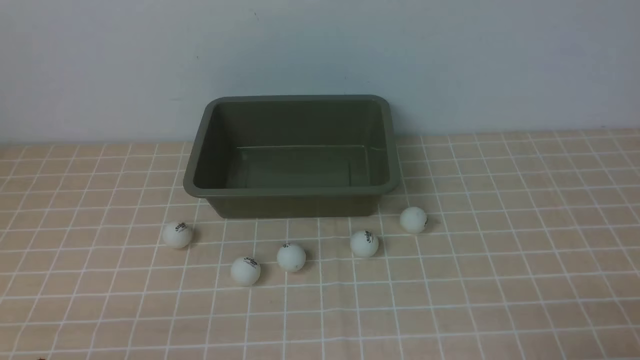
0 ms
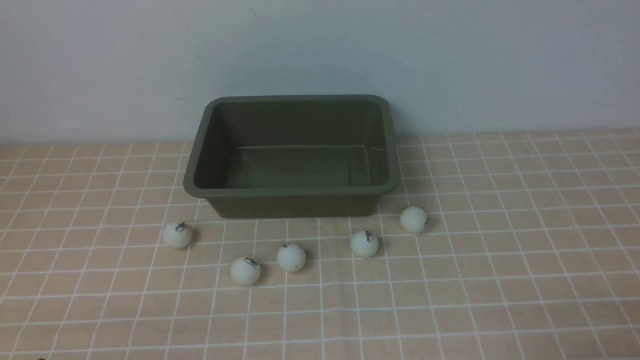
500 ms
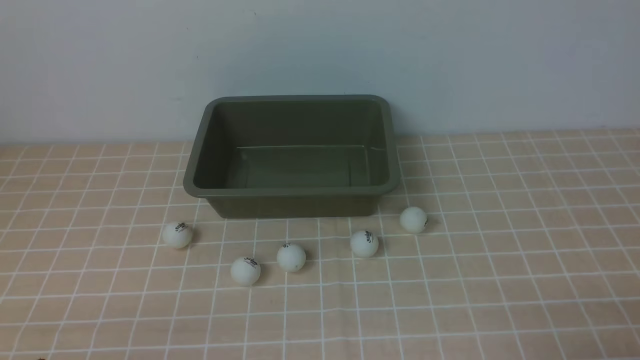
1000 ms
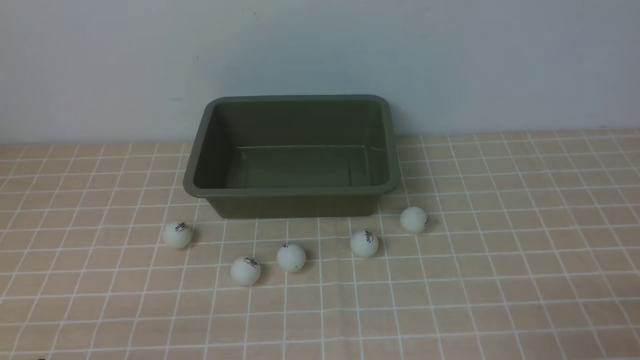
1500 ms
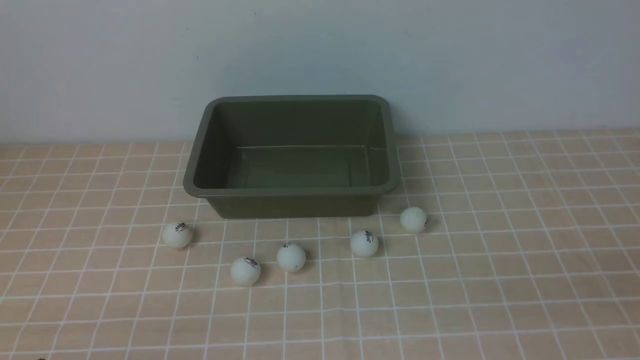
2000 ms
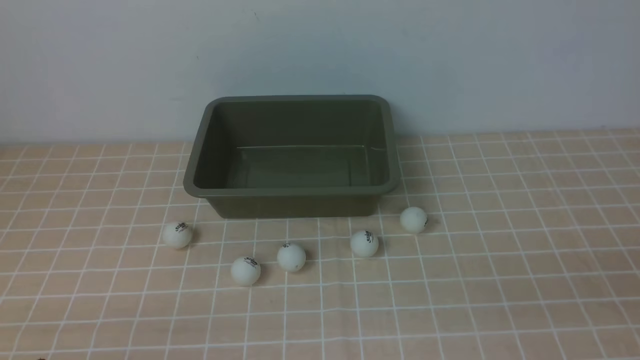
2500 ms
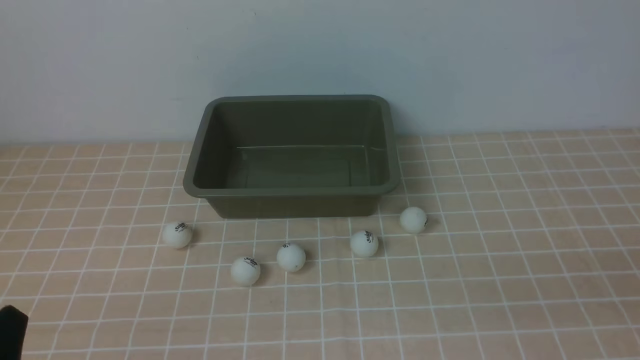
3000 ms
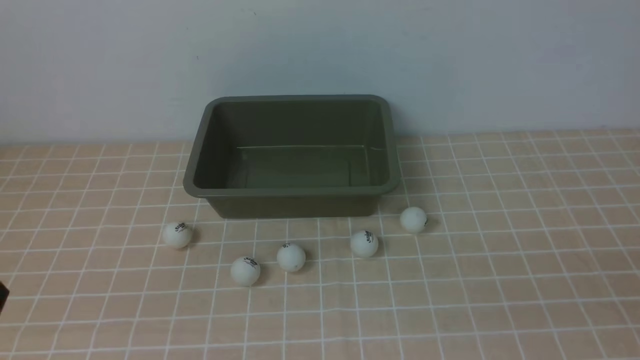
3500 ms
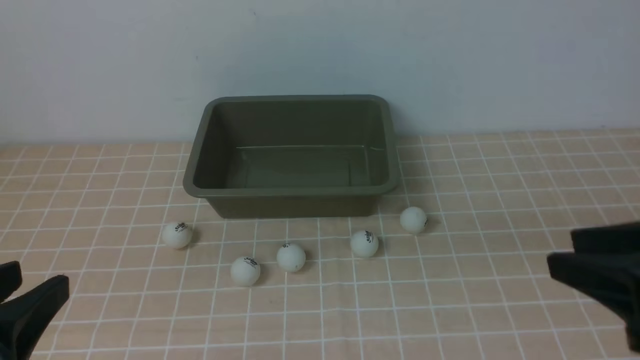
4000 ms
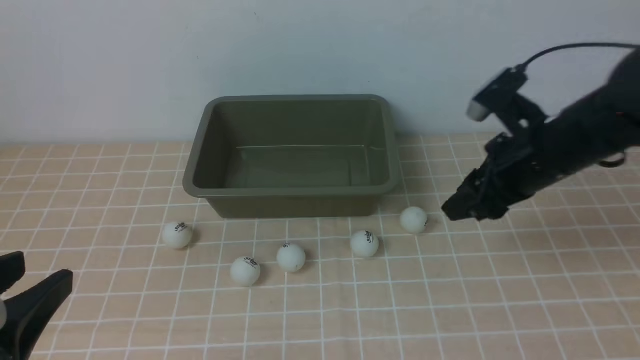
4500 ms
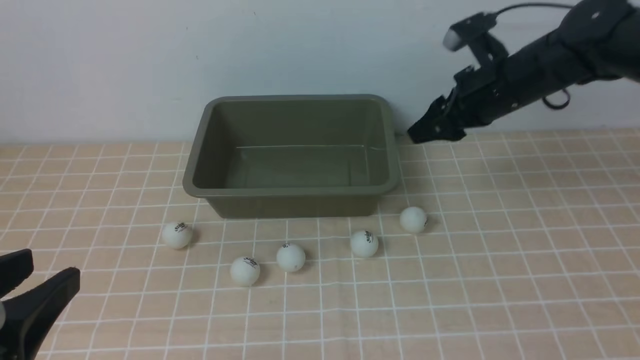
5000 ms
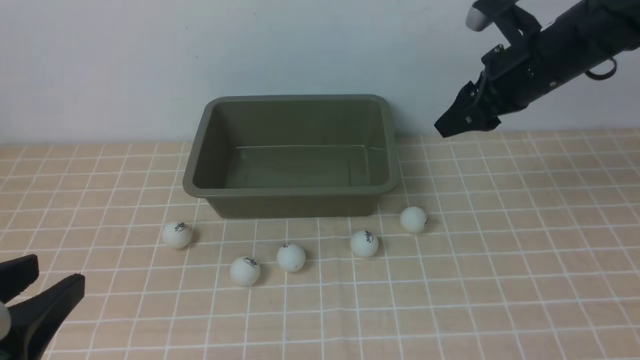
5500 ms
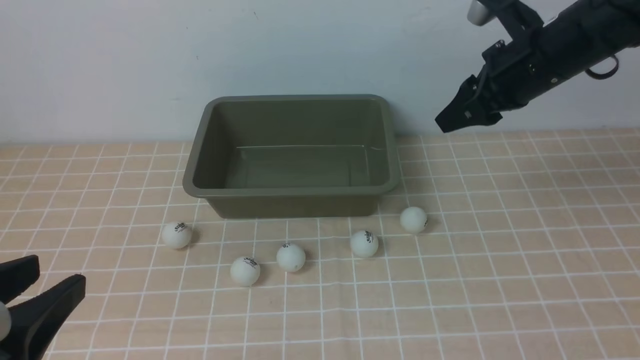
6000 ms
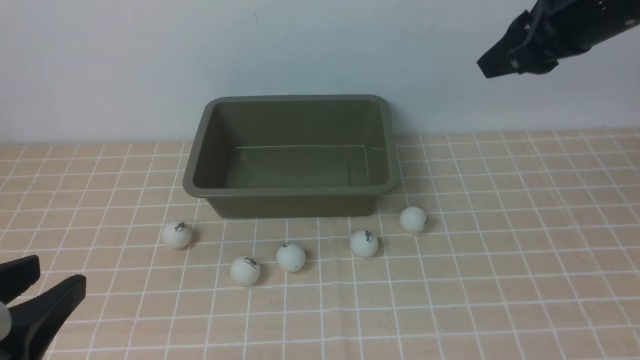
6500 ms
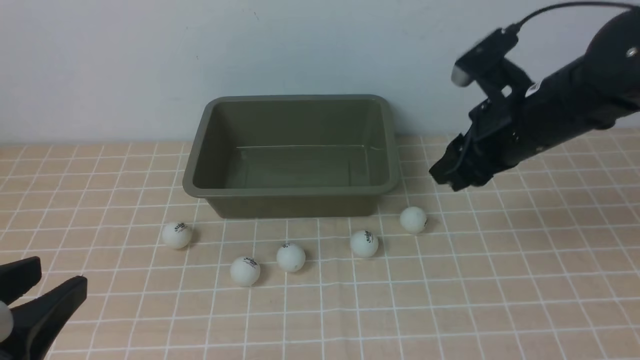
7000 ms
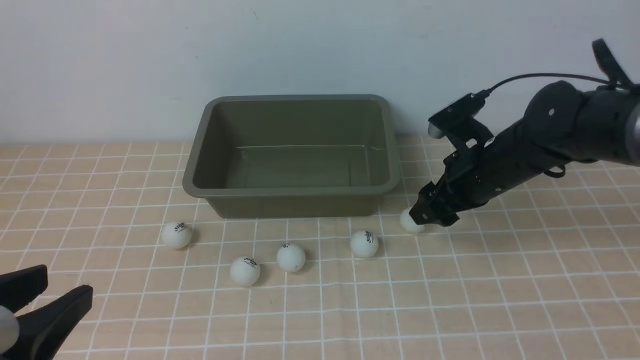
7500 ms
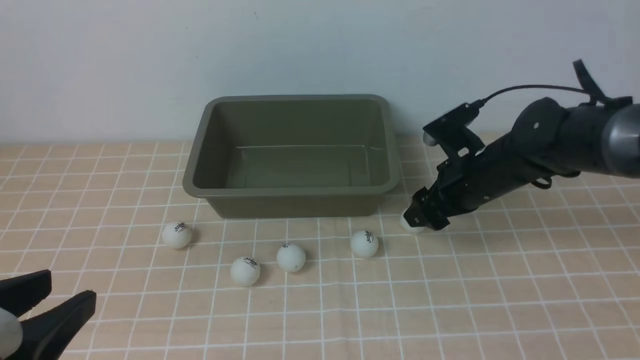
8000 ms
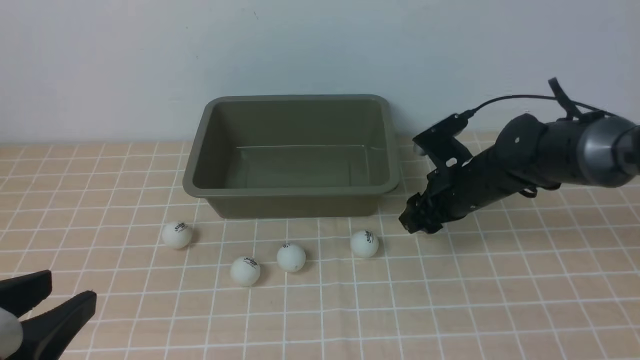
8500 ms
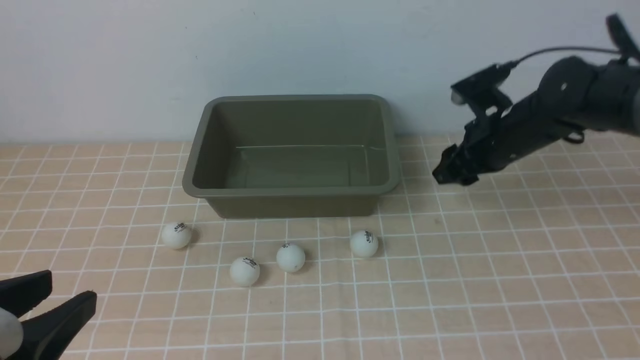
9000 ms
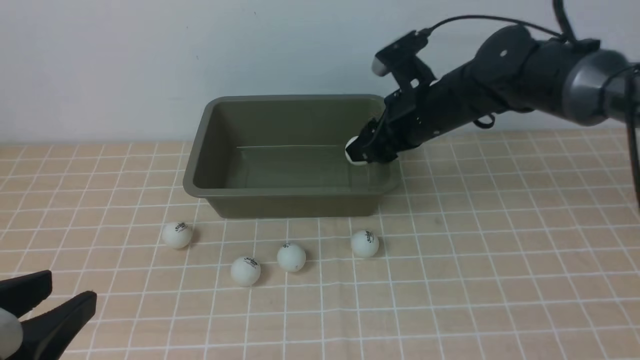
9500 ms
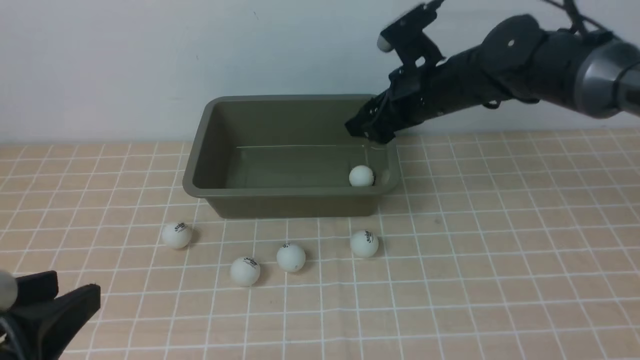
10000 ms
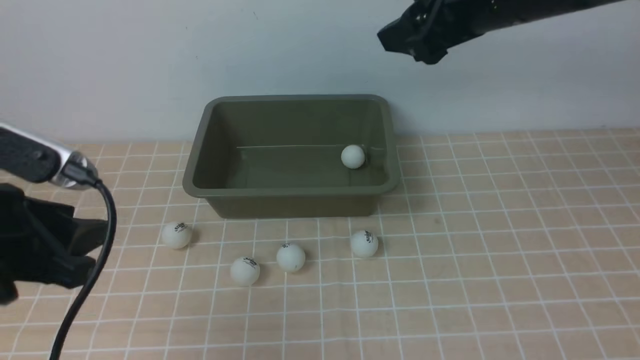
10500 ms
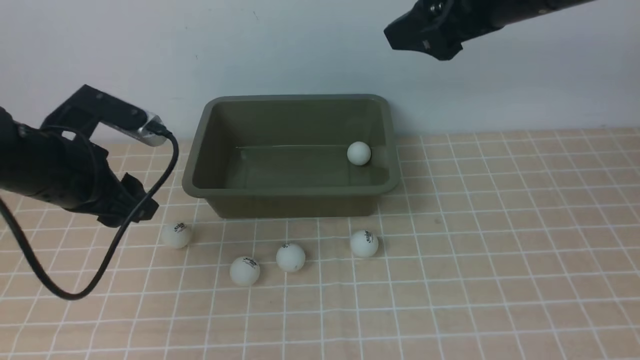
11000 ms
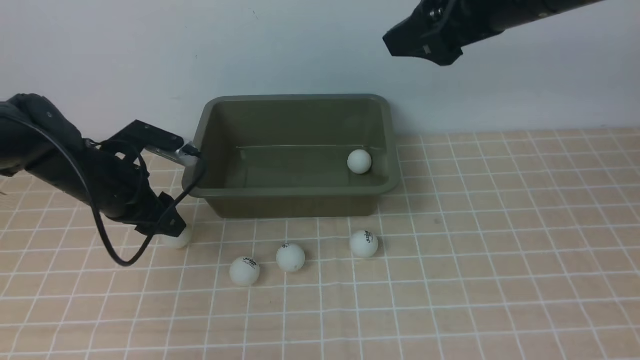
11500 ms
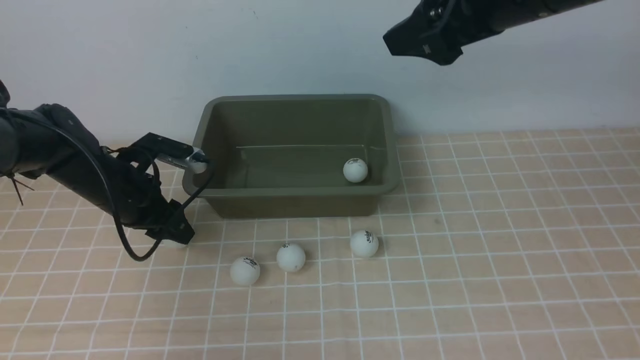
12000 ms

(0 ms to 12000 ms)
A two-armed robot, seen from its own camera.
Step, 0 ms - 8500 ms: use the right arm to clamp the table tennis ball closest to it.
Step, 9000 ms - 10000 ms: use the right arm to put the table tennis ball into the box.
2000 ms - 4000 ms: The left gripper heads upward, covering approximately 15 cm. Meanwhile the right gripper shifts roughly 10 cm forward.
4000 ms - 6000 ms: The right gripper is displaced forward by some 25 cm.
6000 ms - 8000 ms: The right gripper heads downward, covering approximately 15 cm, and opens.
8000 ms - 10000 ms: The right gripper moves upward, about 10 cm, and closes, then reopens.
10000 ms - 12000 ms: The right gripper moves upward and backward, about 15 cm. Meanwhile the left gripper heads forward and downward, covering about 30 cm.

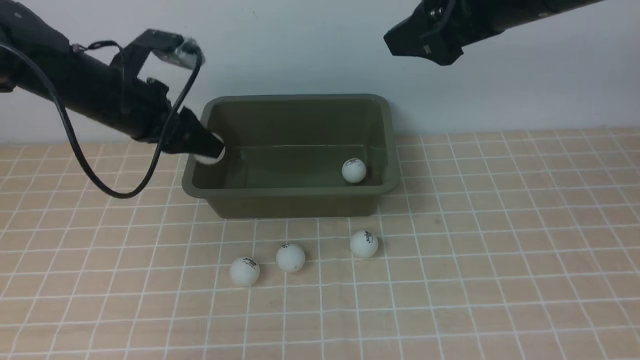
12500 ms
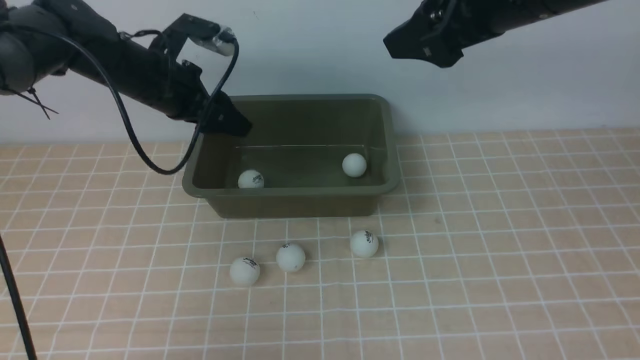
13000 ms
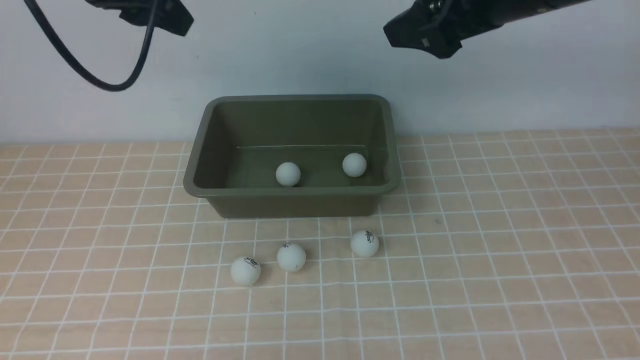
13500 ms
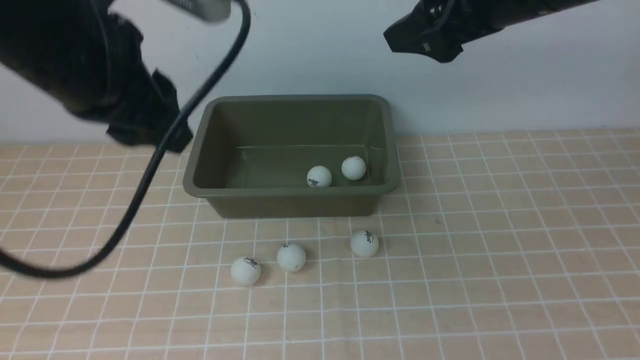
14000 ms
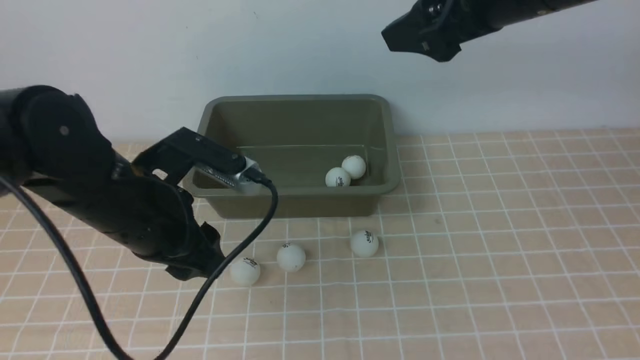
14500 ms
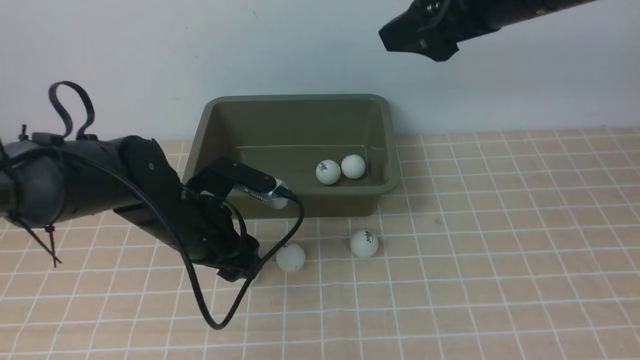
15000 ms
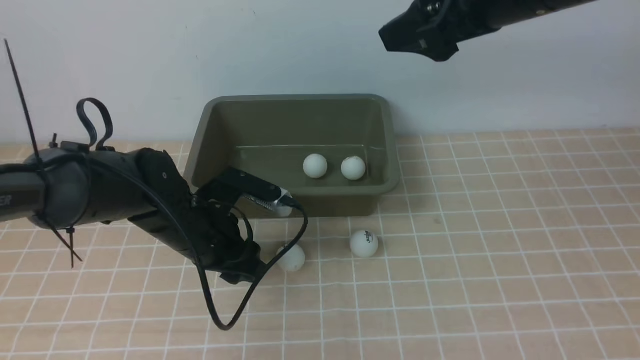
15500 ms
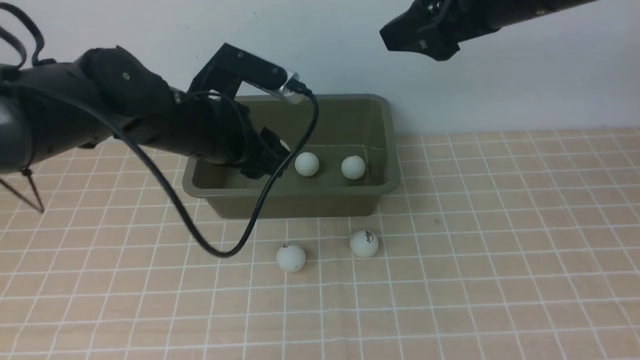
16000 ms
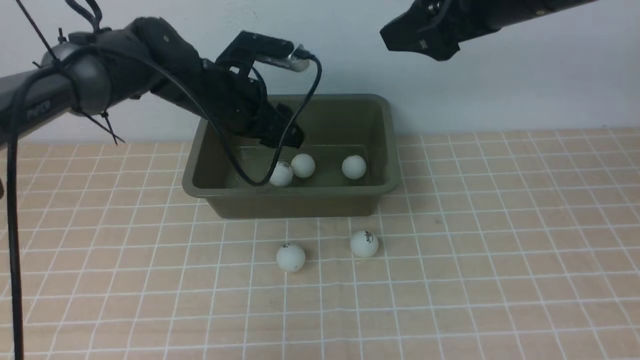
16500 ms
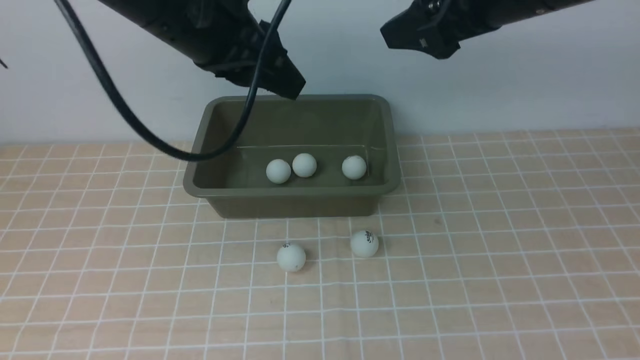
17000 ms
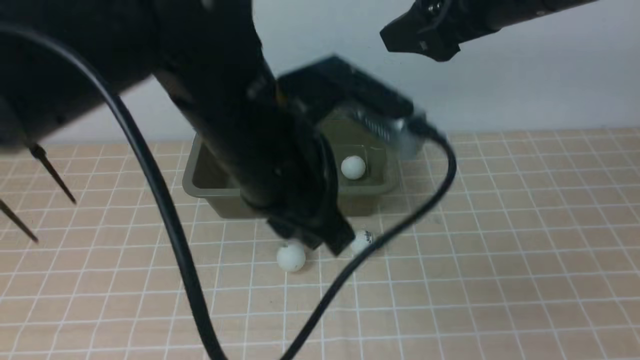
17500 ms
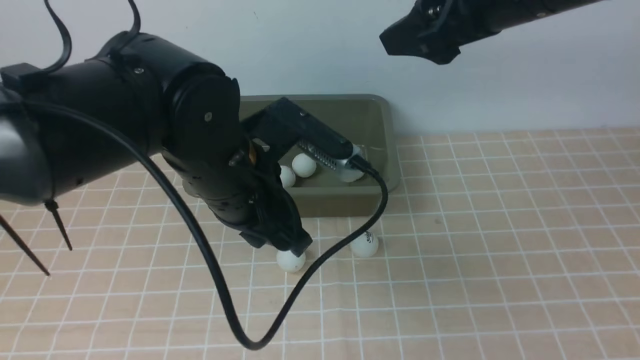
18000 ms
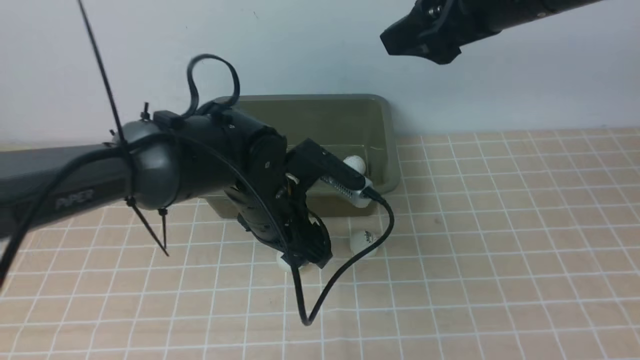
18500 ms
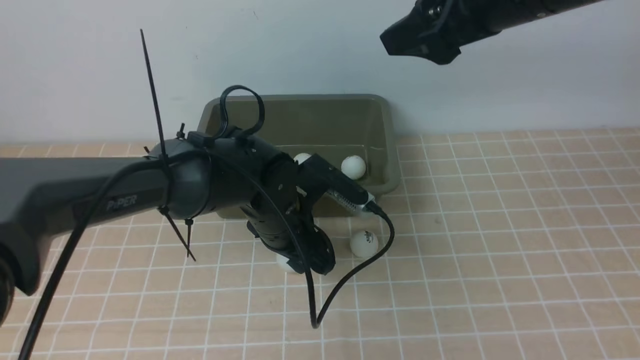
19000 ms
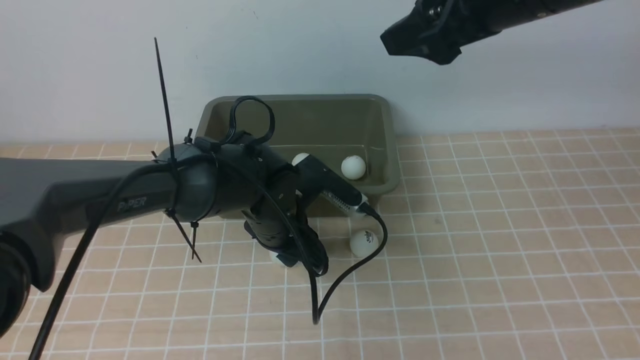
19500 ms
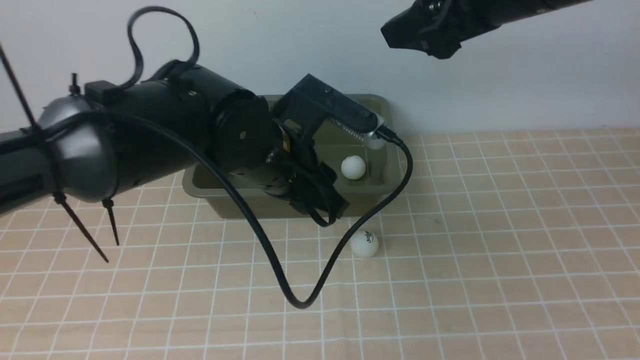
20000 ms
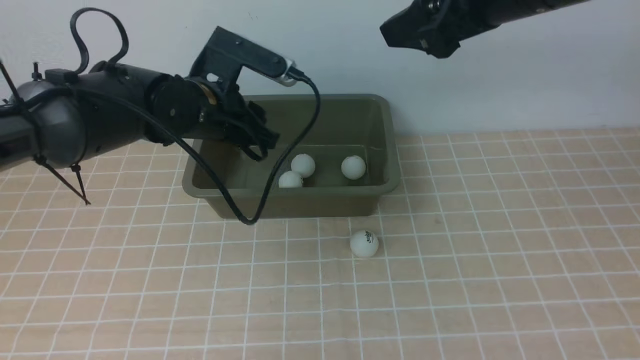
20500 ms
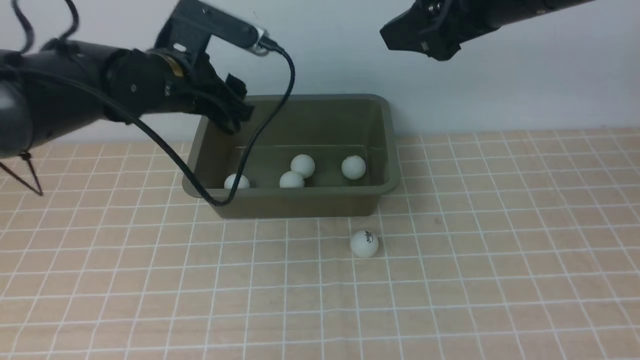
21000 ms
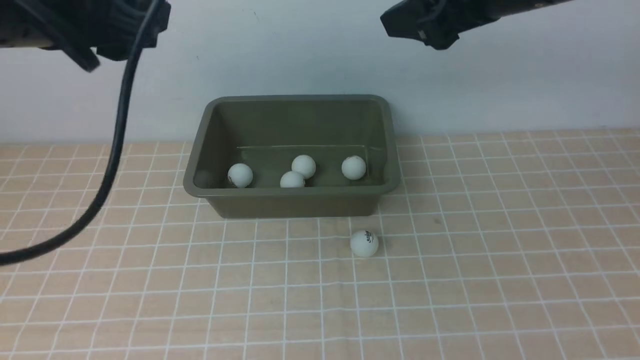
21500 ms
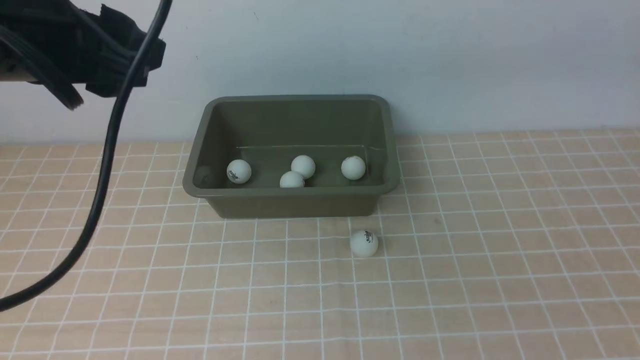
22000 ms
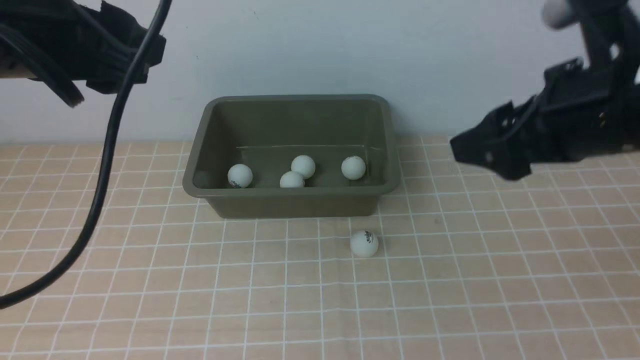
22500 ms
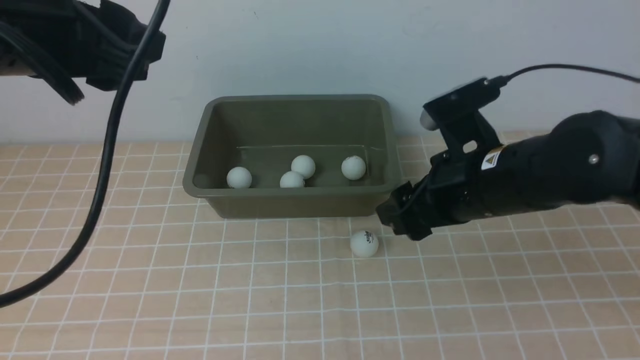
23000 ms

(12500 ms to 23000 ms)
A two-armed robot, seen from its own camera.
Step, 13000 ms - 13500 ms: use the left arm to put the table tennis ball into the box.
Step, 14000 ms - 15500 ms: use the left arm to clamp the table tennis ball closest to it.
Step, 16000 ms - 16500 ms: use the left arm to put the table tennis ball into the box.
Step, 17000 ms - 19000 ms: use the left arm to clamp the table tennis ball closest to it.
Step, 19500 ms - 21000 ms: use the left arm to put the table tennis ball into the box.
12500 ms - 14500 ms: The left gripper shifts about 15 cm backward and to the right.
14500 ms - 16500 ms: The left gripper goes roughly 15 cm forward.
16500 ms - 19000 ms: The left gripper travels downward, backward and to the right by some 15 cm, and closes, then reopens.
19000 ms - 21000 ms: The left gripper shifts approximately 20 cm upward and to the left, and closes, then opens again.
21000 ms - 23000 ms: The right gripper shifts roughly 15 cm downward, while the left gripper travels backward and upward by roughly 20 cm.
